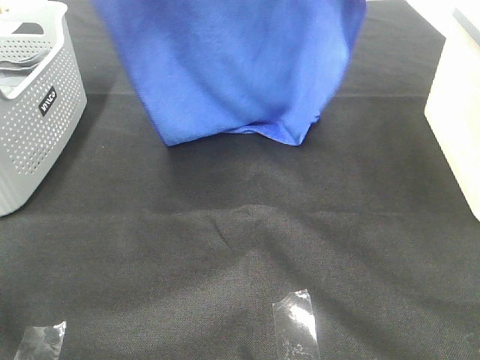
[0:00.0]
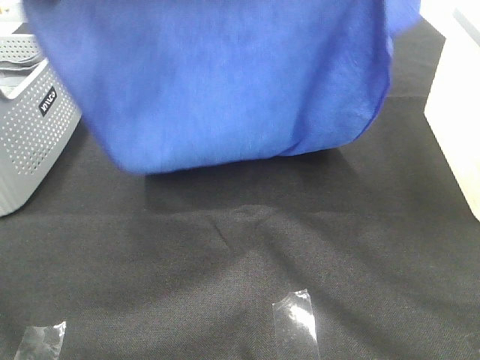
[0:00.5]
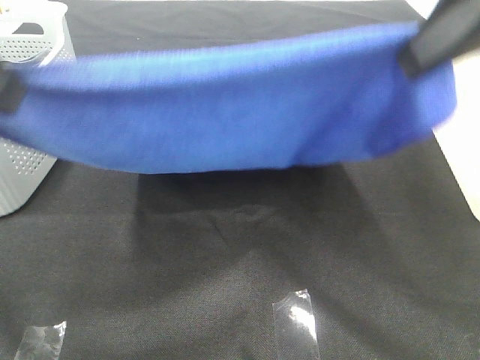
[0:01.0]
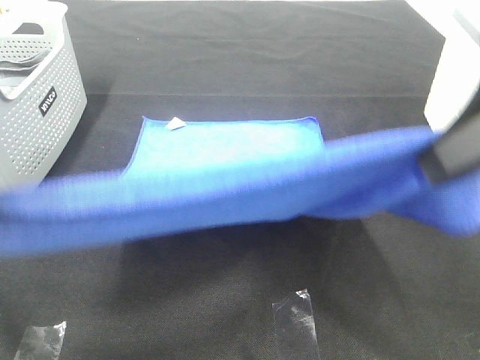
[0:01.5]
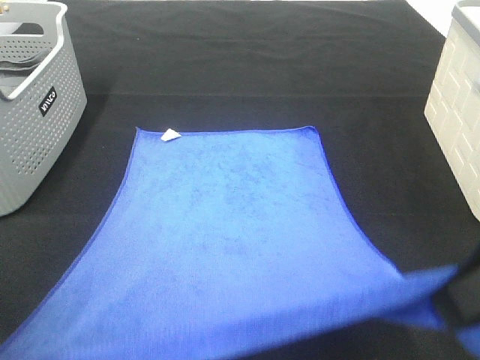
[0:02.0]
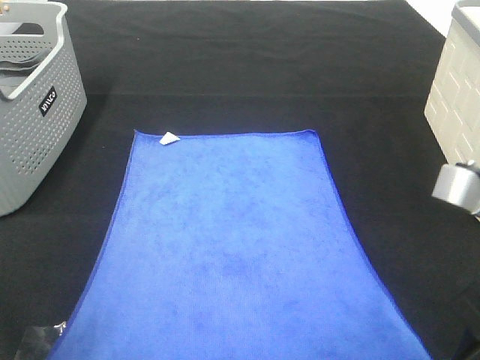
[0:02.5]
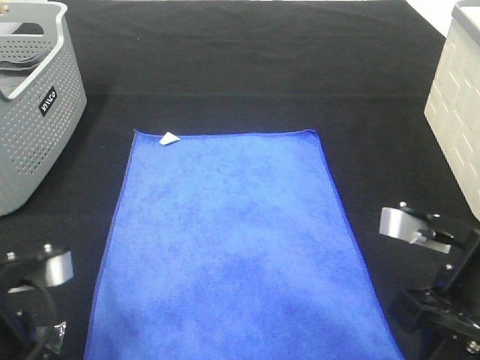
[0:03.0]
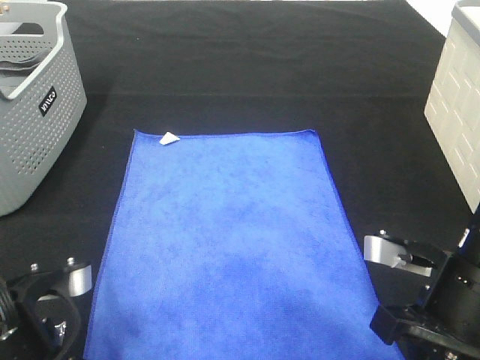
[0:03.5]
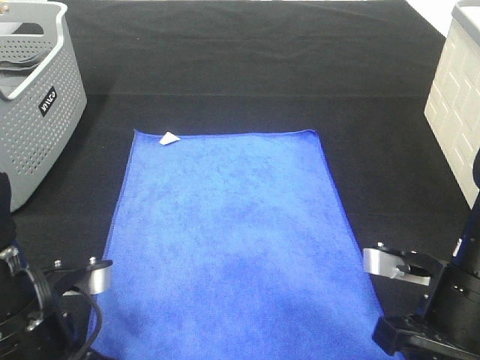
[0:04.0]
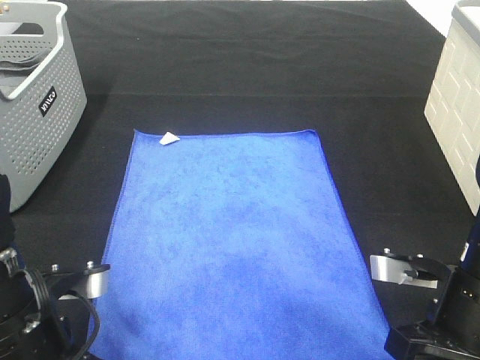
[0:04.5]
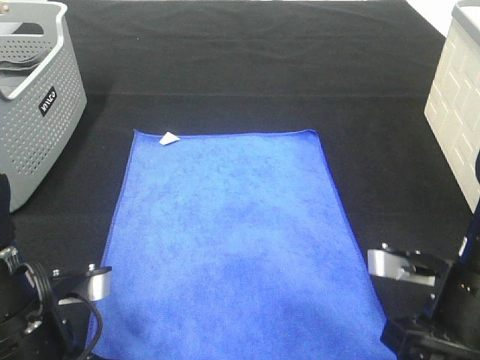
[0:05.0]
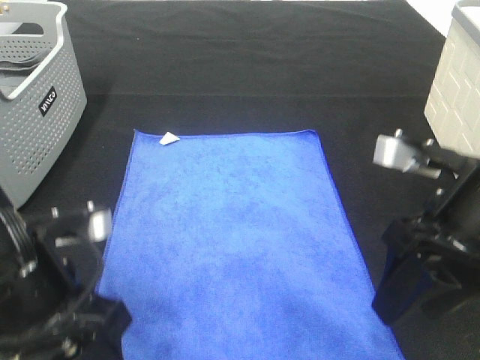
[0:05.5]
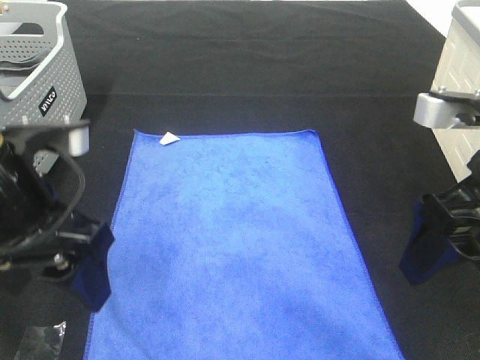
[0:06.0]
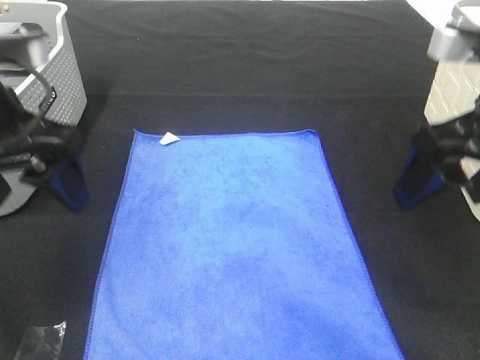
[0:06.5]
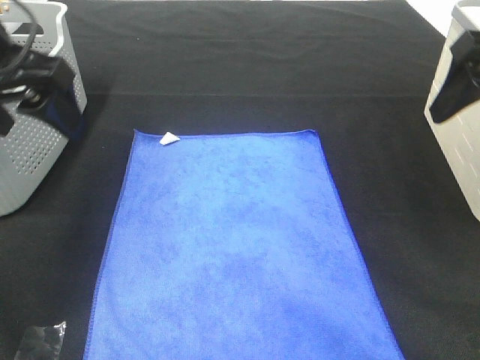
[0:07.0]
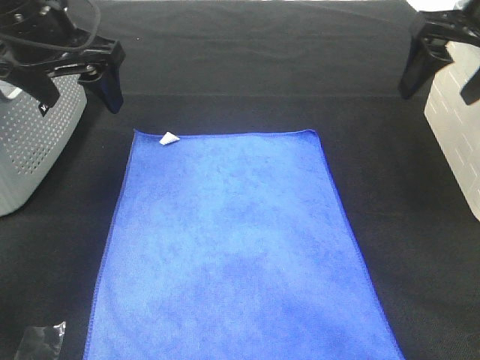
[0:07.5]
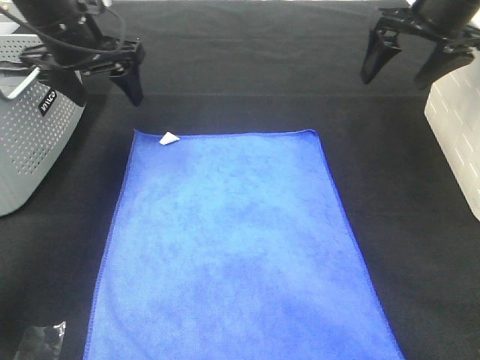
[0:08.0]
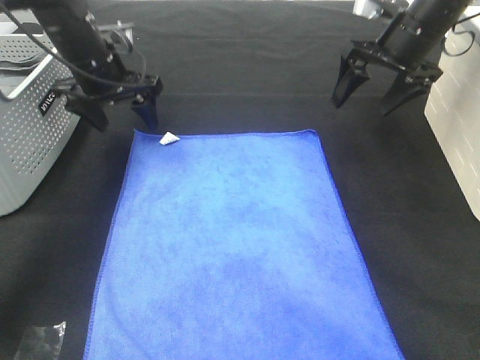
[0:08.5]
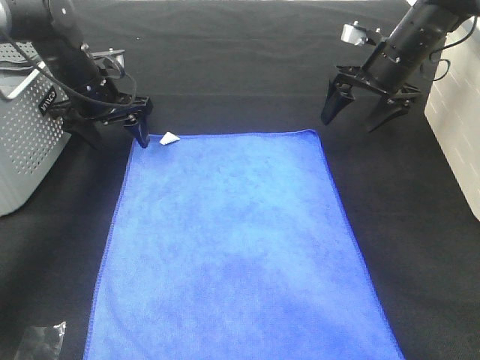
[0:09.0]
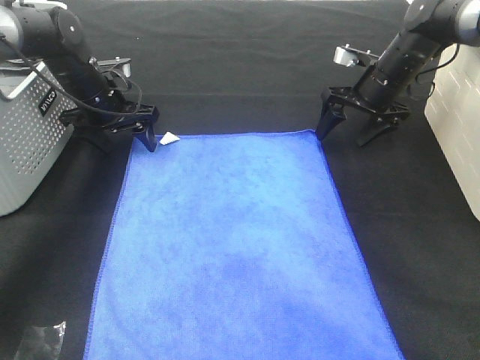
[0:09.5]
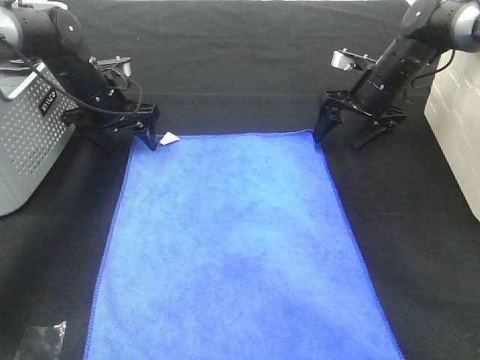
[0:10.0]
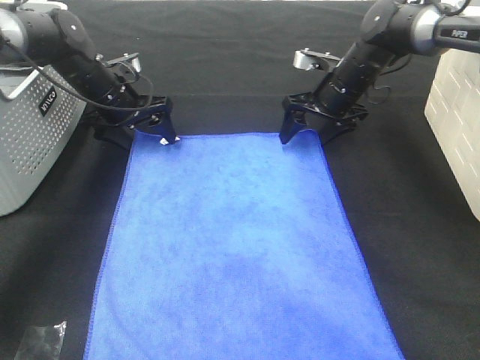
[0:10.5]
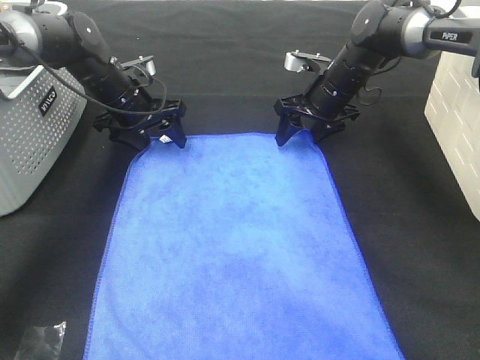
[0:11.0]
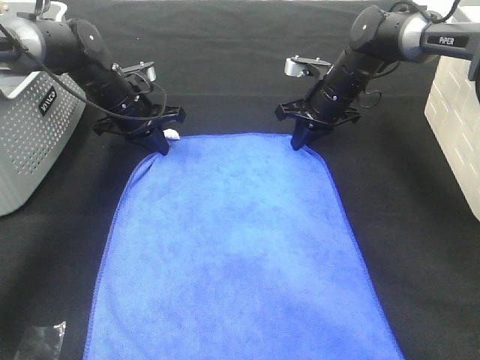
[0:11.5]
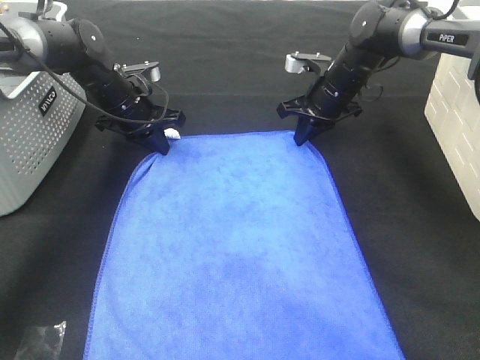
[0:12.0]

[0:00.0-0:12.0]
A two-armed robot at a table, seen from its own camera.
Task of the whole recording: Remove the towel and place it.
Step, 0:00.0 to 0:08.5: Left hand:adjust the blue towel.
Step, 0:00.0 to 0:08.5: Right hand:adjust the blue towel.
0:00.0 to 0:02.0: The two grippers go approximately 30 cm backward and downward.
0:02.0 to 0:04.0: The right gripper heads downward, covering some 15 cm; the left gripper heads downward and forward, covering some 15 cm.
0:04.0 to 0:06.0: The two grippers go approximately 10 cm upward. The left gripper opens its fingers; the right gripper opens up.
0:06.0 to 0:08.0: The grippers both shift forward by some 25 cm.
0:08.0 to 0:10.0: Both grippers move downward and forward, about 15 cm.
0:10.0 to 0:12.0: The right gripper shifts roughly 5 cm to the left, and closes up. Meanwhile the left gripper closes its fingers.

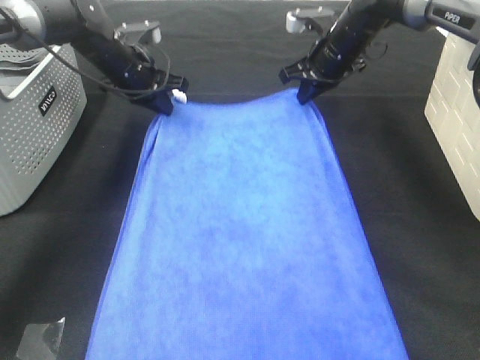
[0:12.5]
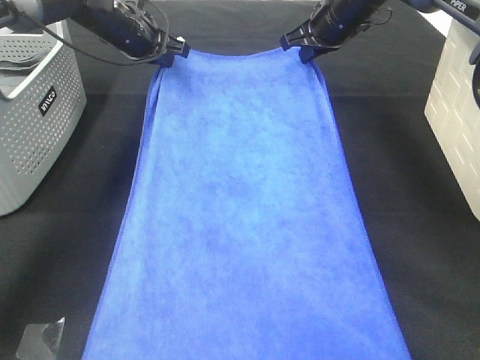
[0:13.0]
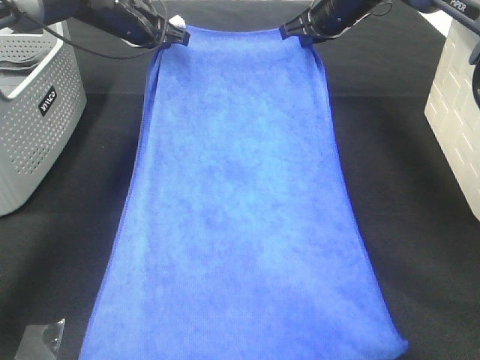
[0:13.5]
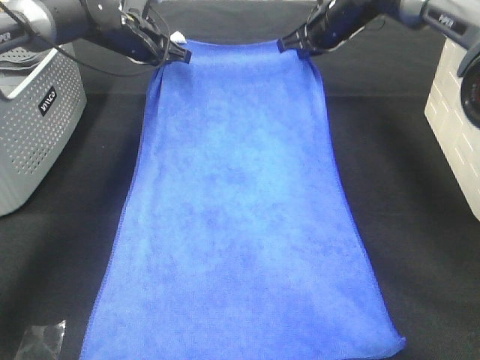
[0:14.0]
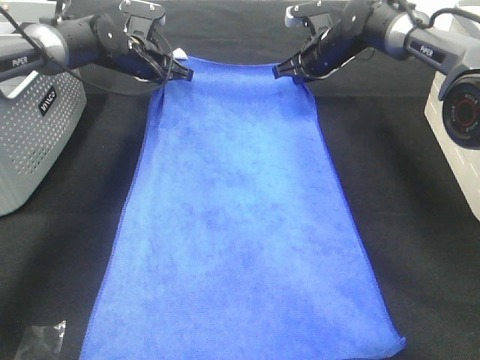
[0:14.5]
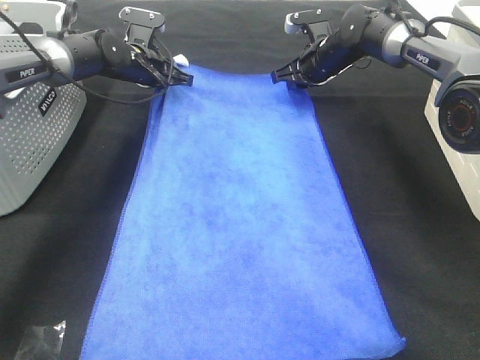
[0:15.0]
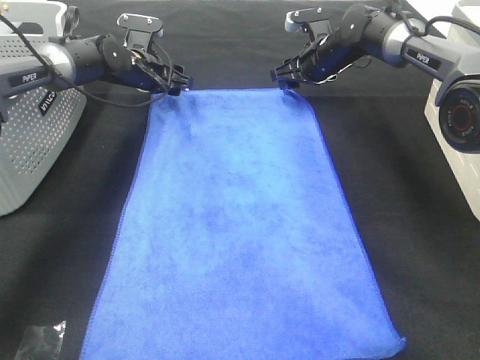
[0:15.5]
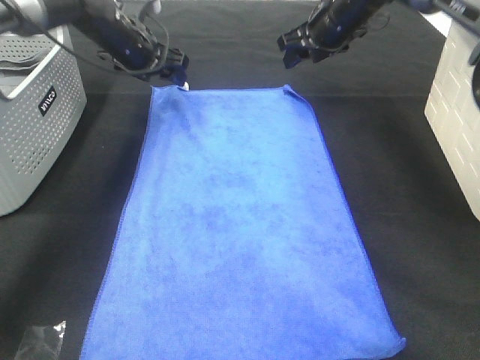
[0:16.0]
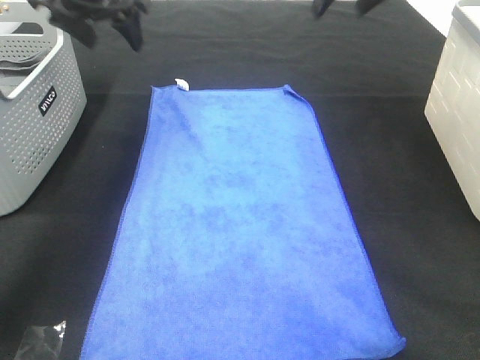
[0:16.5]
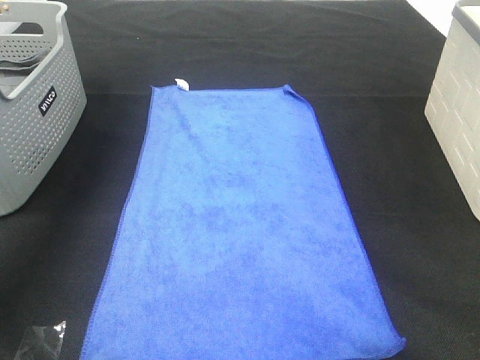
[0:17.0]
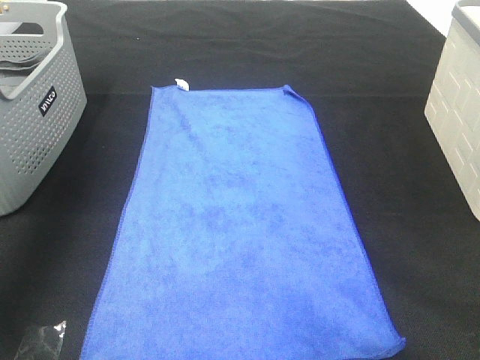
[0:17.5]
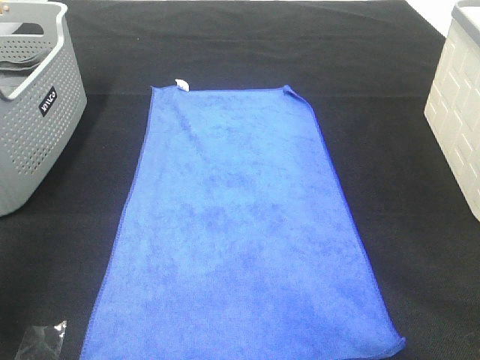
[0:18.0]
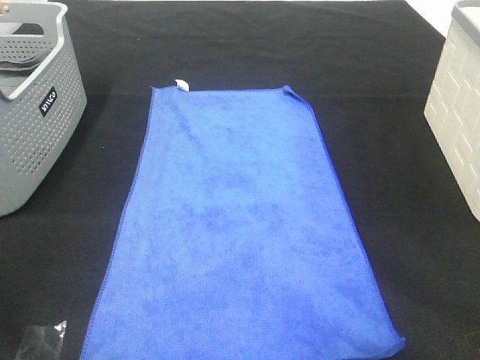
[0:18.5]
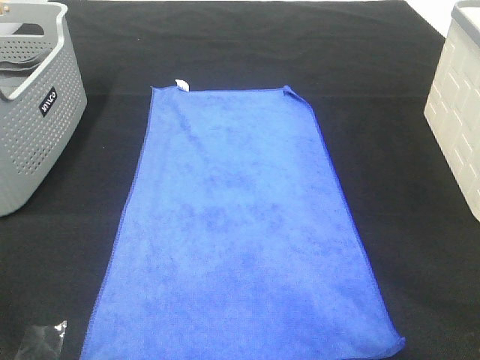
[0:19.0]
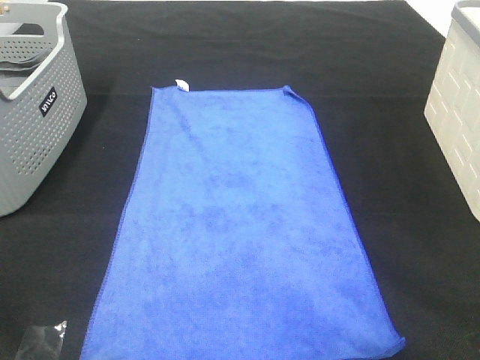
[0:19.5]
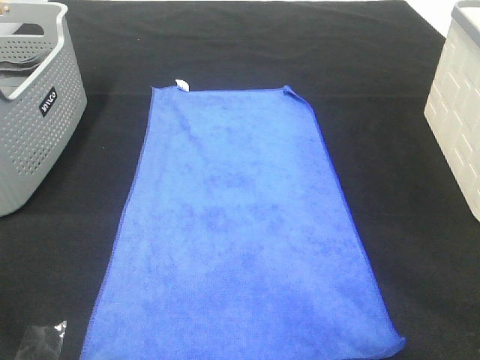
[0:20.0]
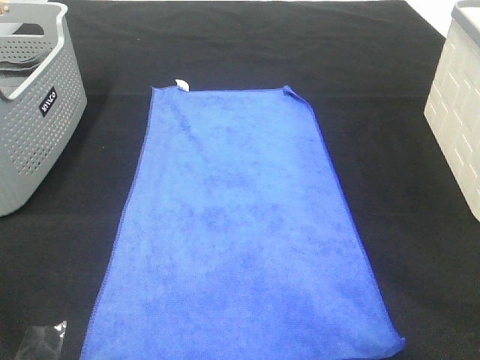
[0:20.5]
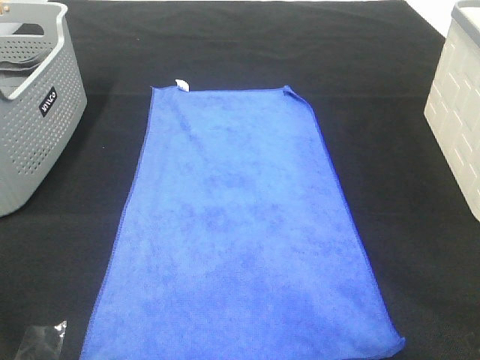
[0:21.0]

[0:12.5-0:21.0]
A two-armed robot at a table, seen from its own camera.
Task of the whole recording: Remove the towel and place it.
0:12.5 to 0:14.5: The right gripper ends up approximately 5 cm from where it was.
0:14.5 to 0:16.5: Both grippers travel together upward and backward, approximately 20 cm. The left gripper opens; the right gripper opens.
0:16.5 to 0:19.0: Both grippers move backward, some 50 cm.
